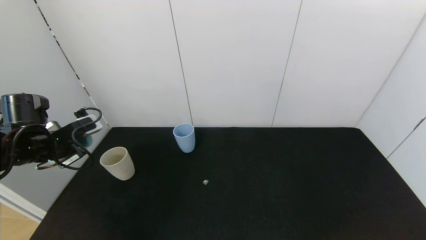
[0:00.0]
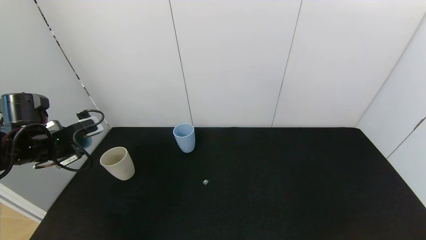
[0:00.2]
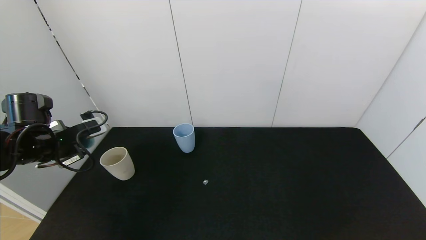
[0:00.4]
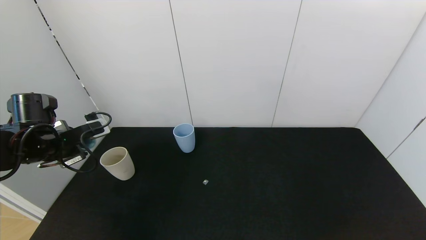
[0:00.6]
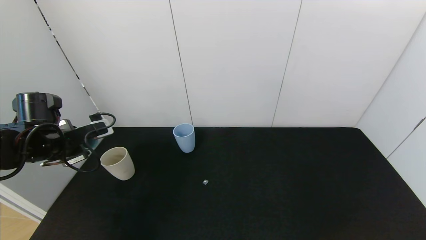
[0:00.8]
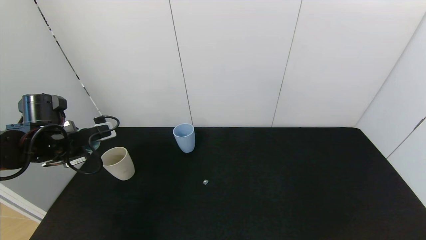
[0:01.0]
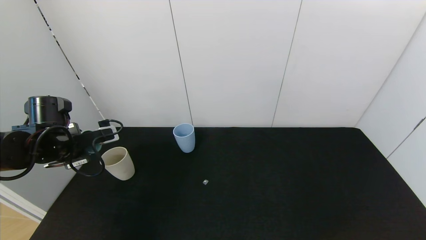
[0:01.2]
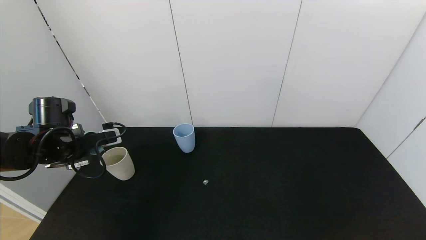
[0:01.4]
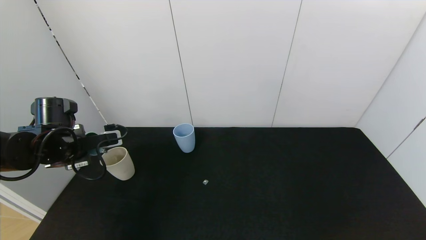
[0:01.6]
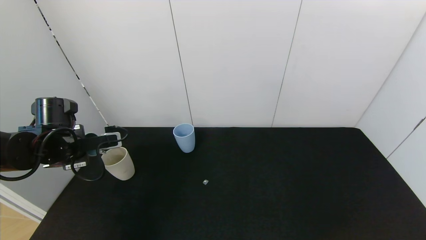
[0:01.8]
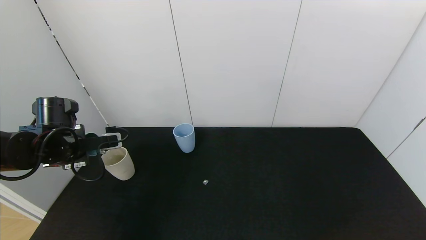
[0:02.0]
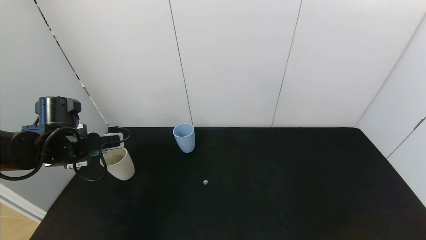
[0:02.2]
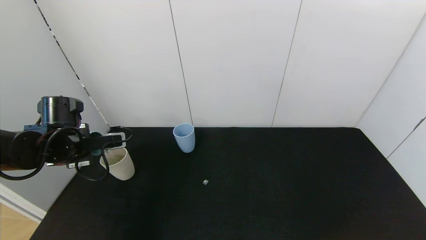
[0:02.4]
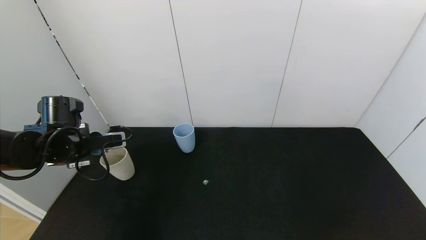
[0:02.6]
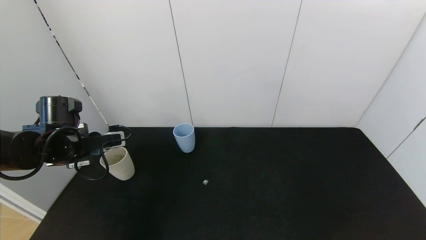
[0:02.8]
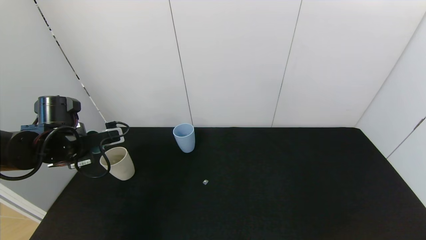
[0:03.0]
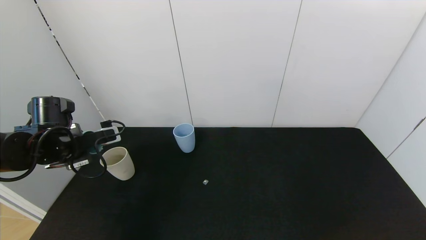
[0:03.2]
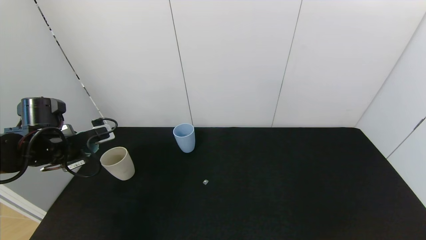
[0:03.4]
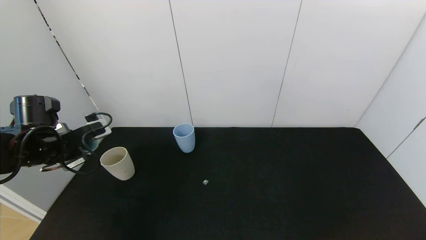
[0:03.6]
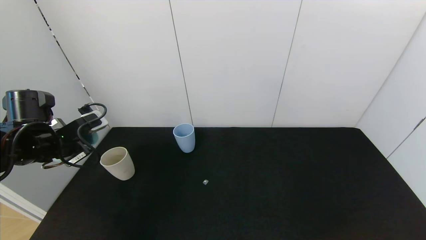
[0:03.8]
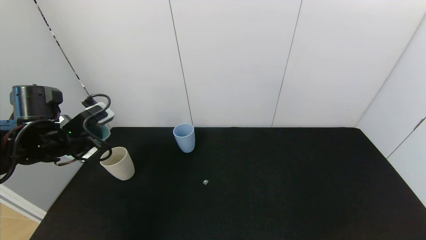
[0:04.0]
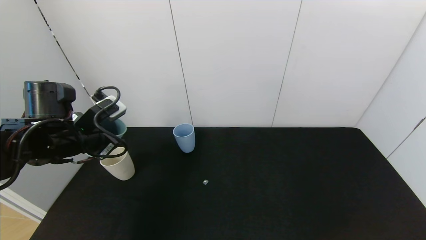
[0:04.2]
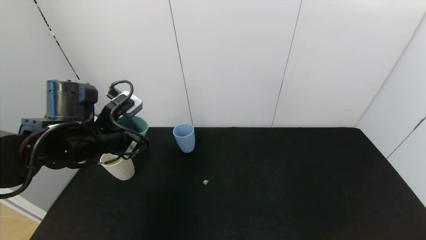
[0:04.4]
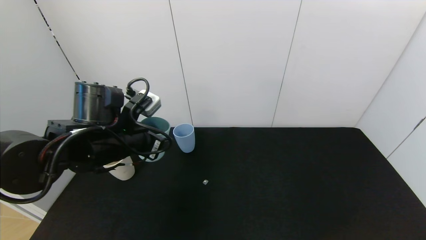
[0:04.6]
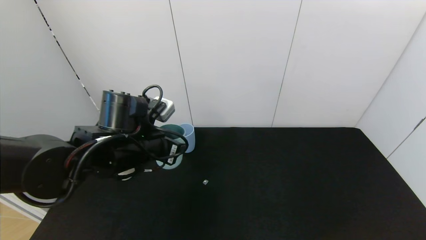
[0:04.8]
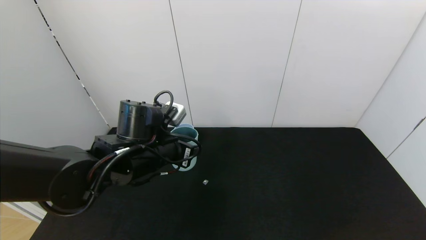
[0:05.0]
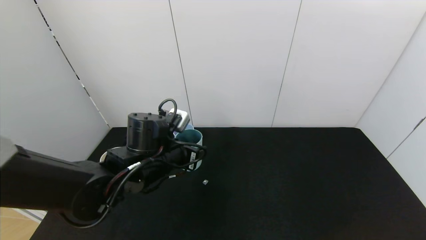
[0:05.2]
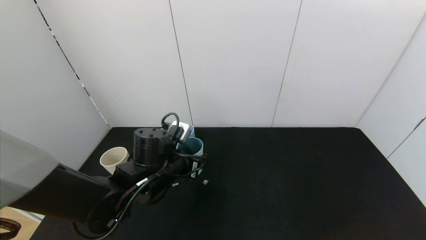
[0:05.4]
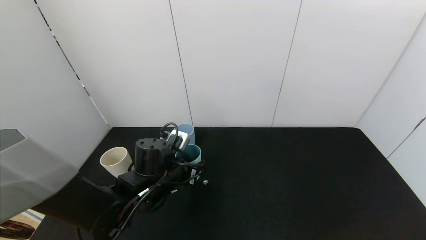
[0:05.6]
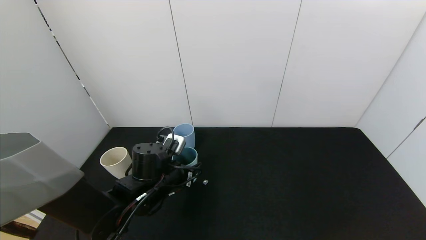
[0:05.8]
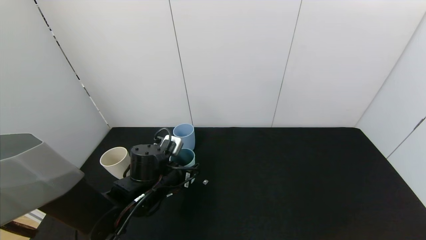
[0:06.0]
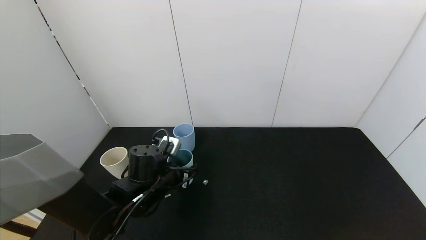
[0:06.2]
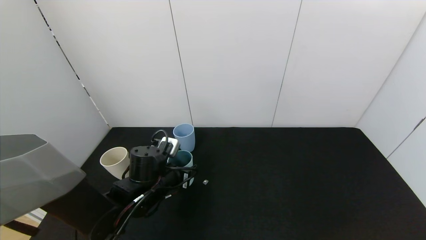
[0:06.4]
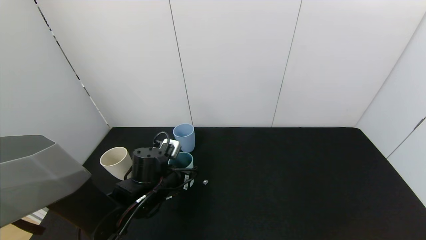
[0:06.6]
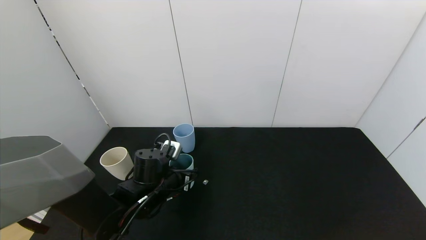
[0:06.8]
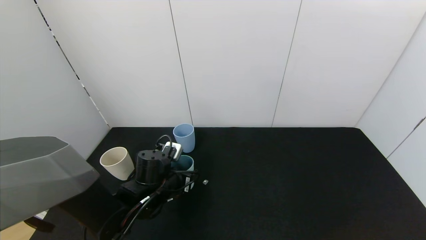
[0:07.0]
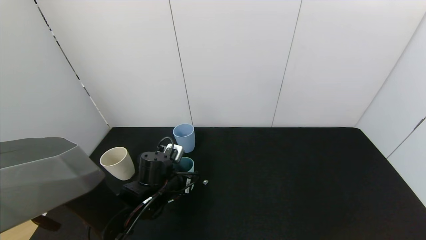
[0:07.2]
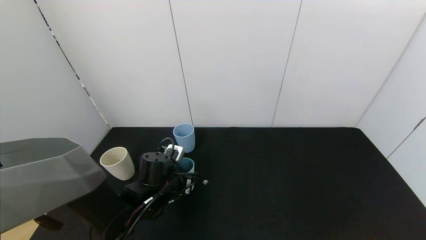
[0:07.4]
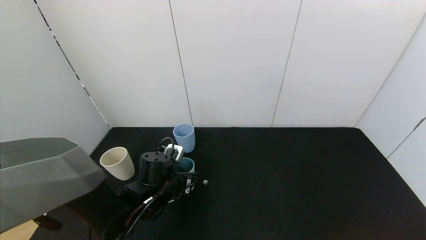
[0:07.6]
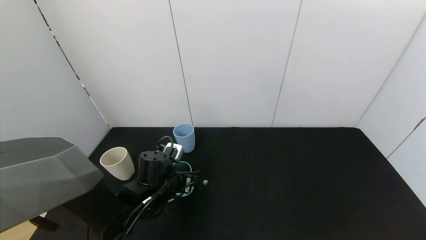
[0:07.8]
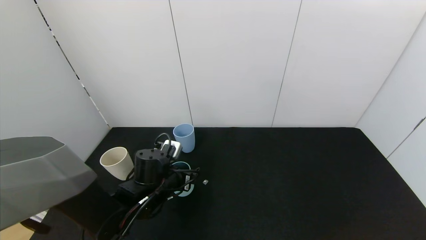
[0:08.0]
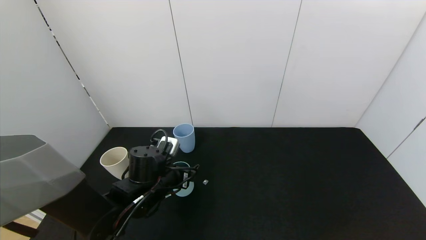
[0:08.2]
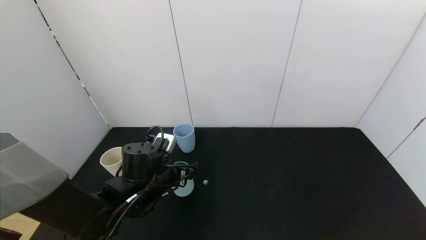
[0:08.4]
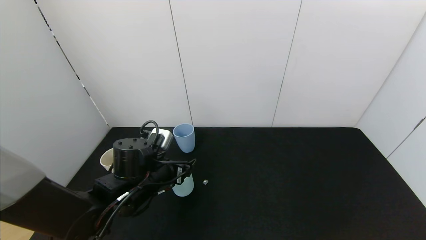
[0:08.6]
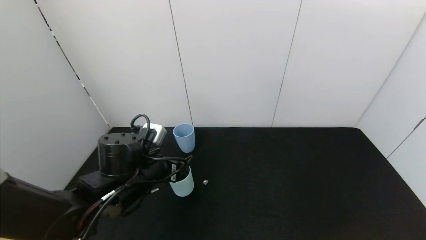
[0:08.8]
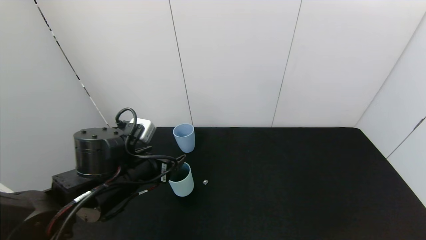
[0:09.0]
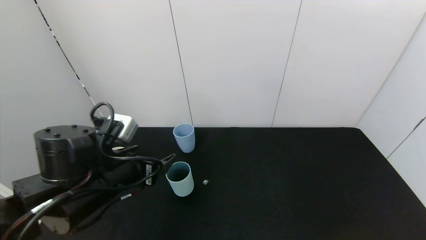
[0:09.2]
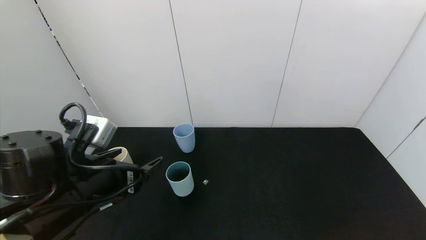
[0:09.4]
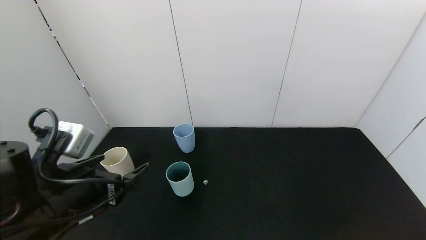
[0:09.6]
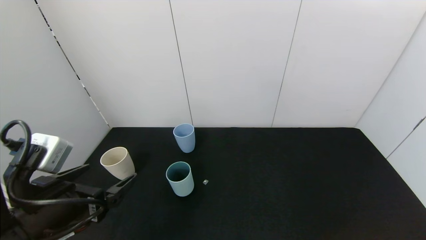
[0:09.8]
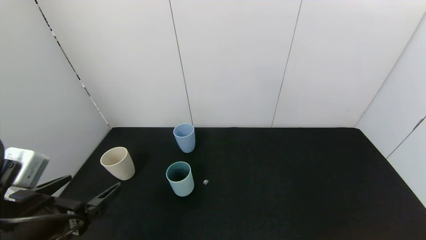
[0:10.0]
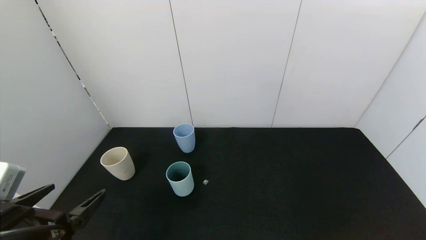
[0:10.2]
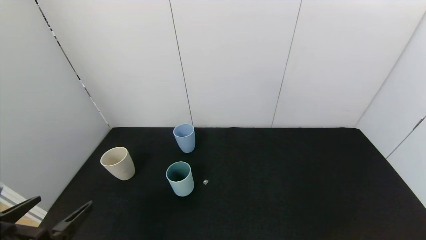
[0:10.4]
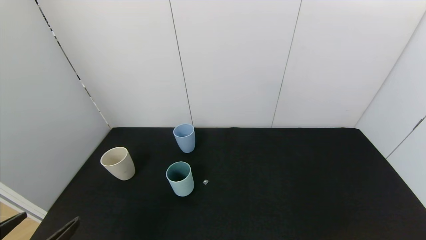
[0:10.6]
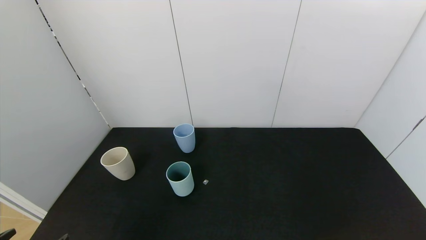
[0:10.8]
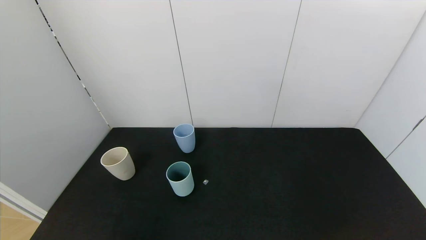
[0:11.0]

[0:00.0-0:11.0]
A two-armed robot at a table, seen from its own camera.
Task of the whole recording: use the gripper to pour the water into the other two cups on black table.
Step, 0:00.0 to 0:04.0: Pour water from green cup to white cup with the left gripper.
Step, 0:04.2 to 0:09.4: Place the green cup with the left gripper.
0:01.6 to 0:03.2: There are only small adjustments of the grippers.
0:03.2 to 0:04.8: The left gripper heads to the right, covering about 20 cm.
0:04.8 to 0:06.2: The left gripper travels downward by about 10 cm.
0:06.2 to 0:07.8: The left gripper opens.
0:07.8 to 0:09.4: The left gripper shifts about 20 cm upward, backward and to the left, and opens.
0:09.4 to 0:11.0: The left gripper heads backward and to the left, covering some 20 cm.
